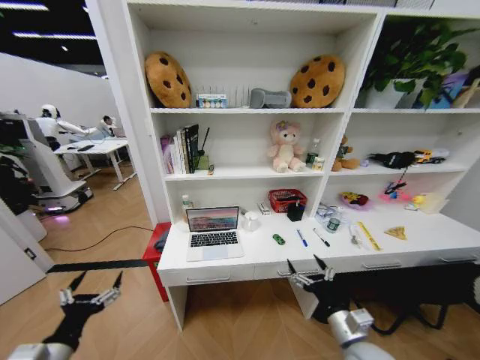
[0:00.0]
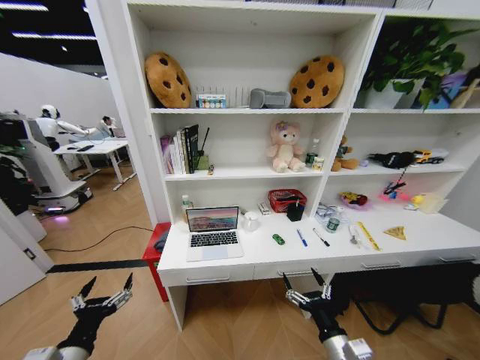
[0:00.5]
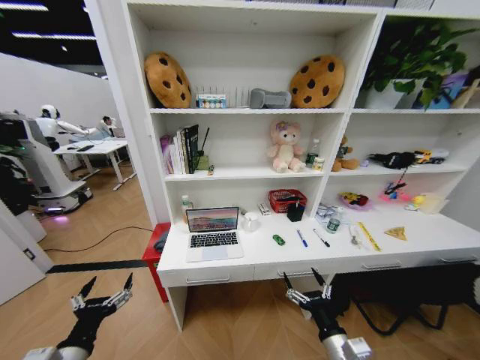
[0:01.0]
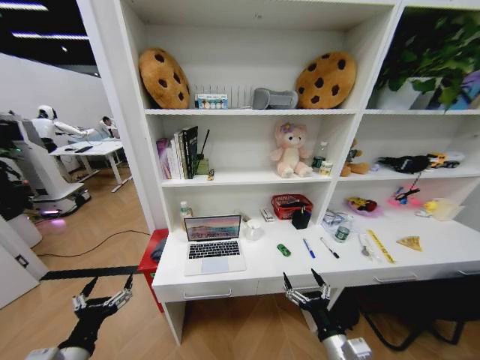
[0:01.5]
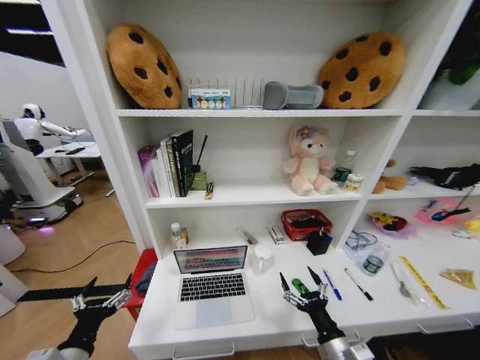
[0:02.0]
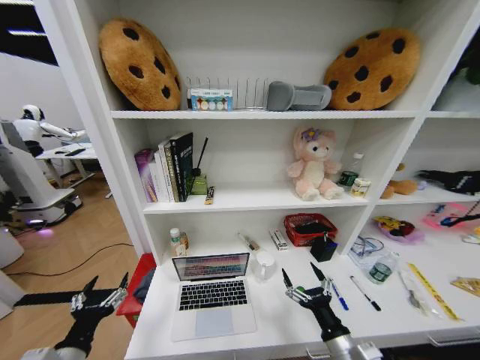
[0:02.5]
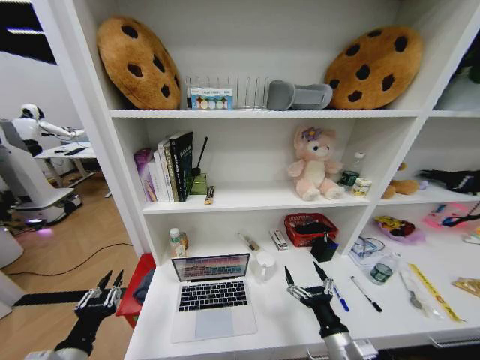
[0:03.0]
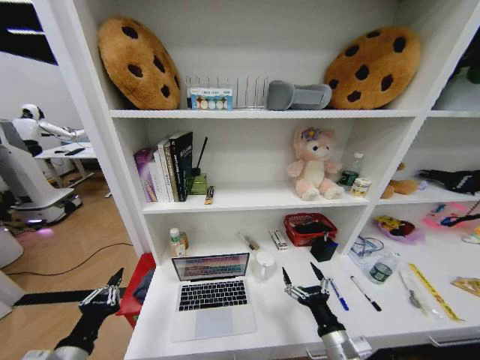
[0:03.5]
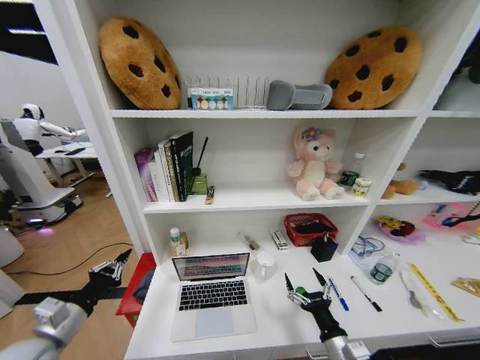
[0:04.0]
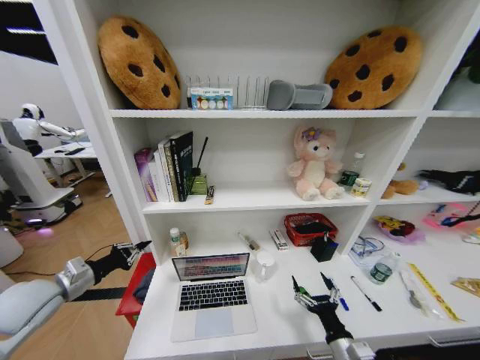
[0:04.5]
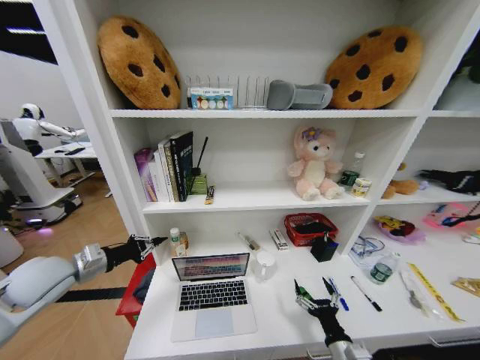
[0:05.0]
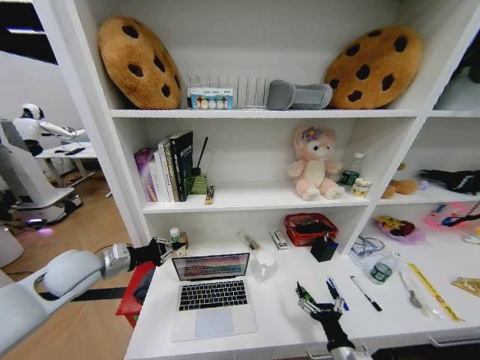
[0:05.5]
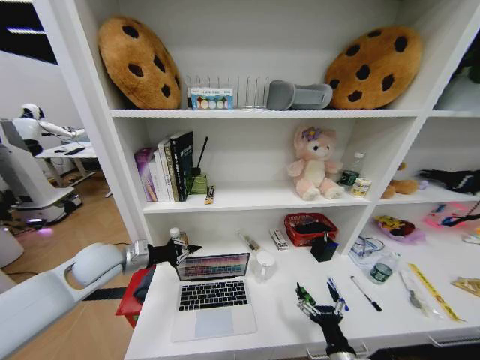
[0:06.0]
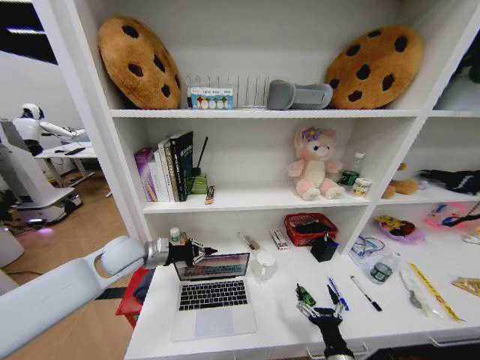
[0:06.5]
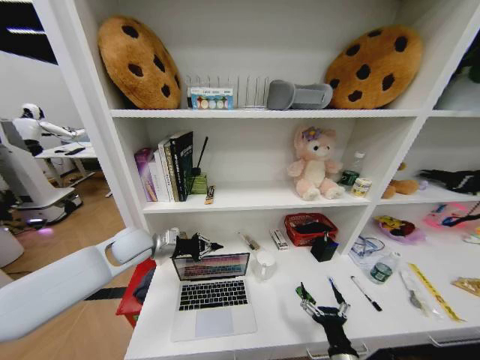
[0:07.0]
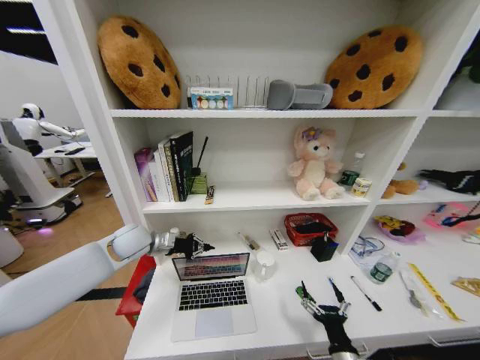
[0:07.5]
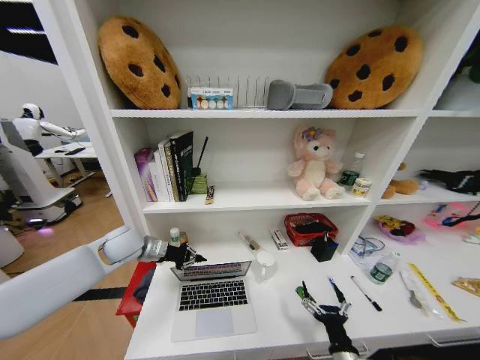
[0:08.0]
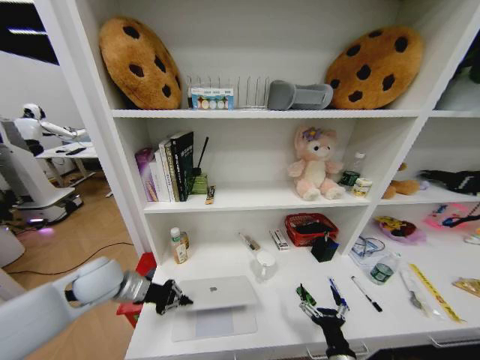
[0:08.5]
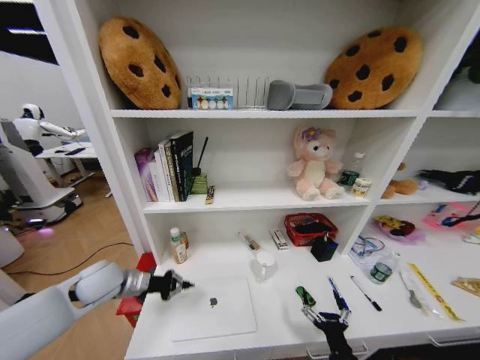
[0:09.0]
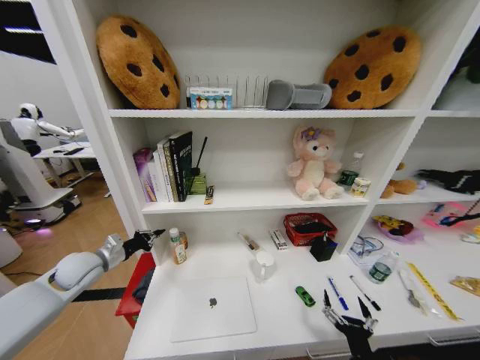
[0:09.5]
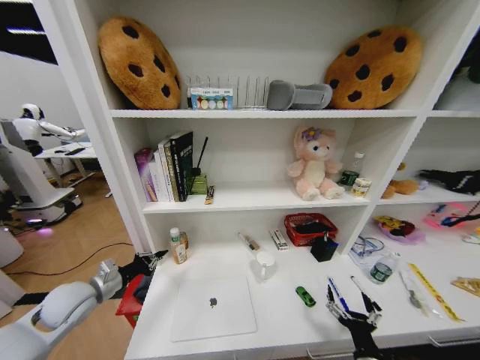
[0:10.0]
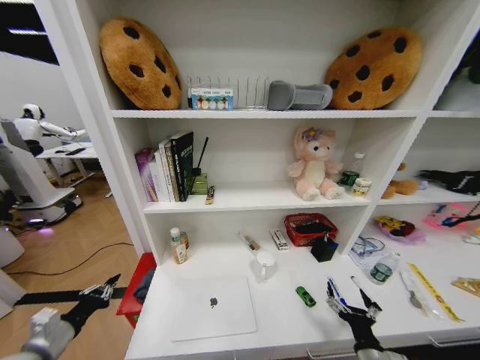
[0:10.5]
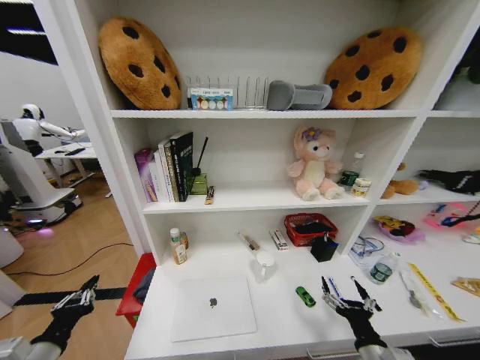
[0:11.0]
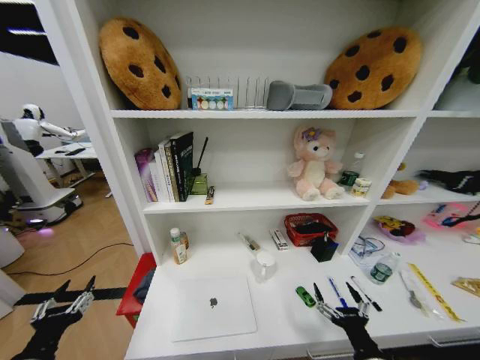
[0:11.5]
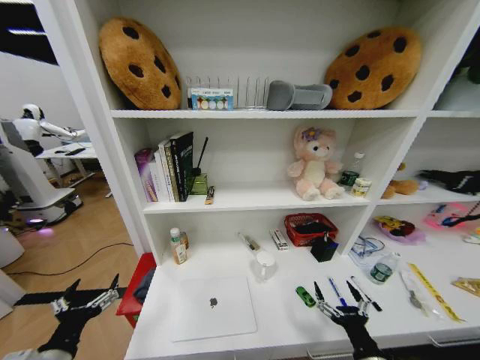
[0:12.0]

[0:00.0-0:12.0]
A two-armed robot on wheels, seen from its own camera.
Task of the whole recording: Organize the objects on the table.
0:02.0 to 0:04.0: The left gripper moves forward and to the left, roughly 10 cm, and closes its fingers.
0:04.0 to 0:06.0: The left gripper is displaced forward and to the right by roughly 20 cm.
0:06.0 to 0:08.0: The left gripper is displaced forward by some 5 cm.
0:08.0 to 0:10.0: The left gripper swings forward and backward, some 10 cm each way, with 2 reversals.
0:10.0 to 0:12.0: The left gripper goes some 20 cm backward, and opens up.

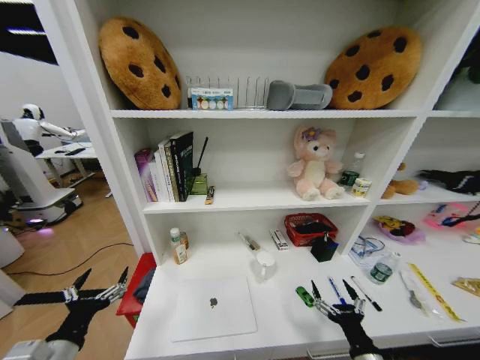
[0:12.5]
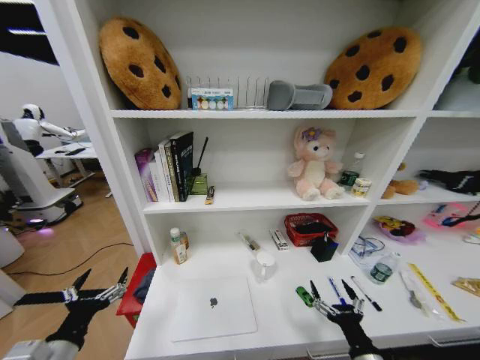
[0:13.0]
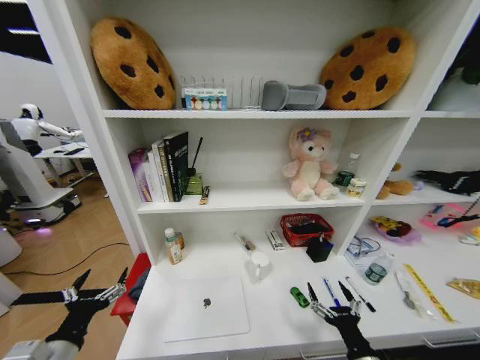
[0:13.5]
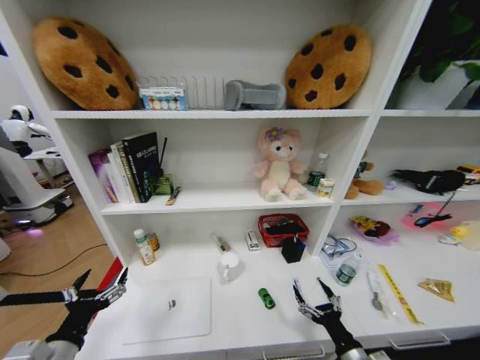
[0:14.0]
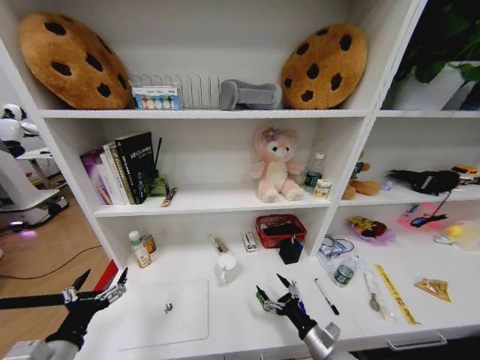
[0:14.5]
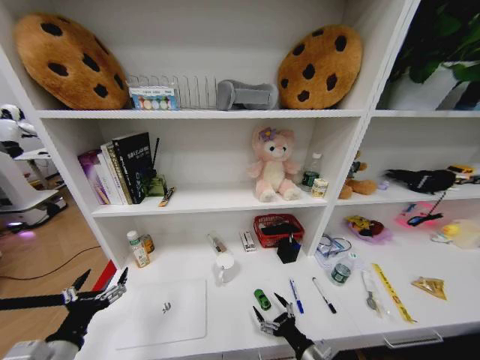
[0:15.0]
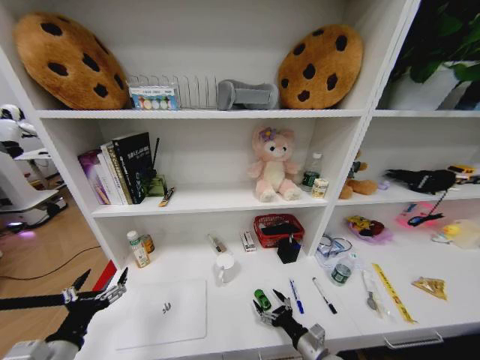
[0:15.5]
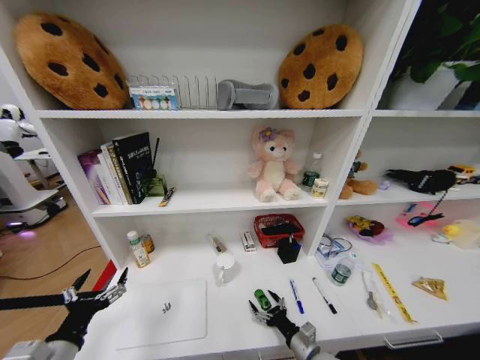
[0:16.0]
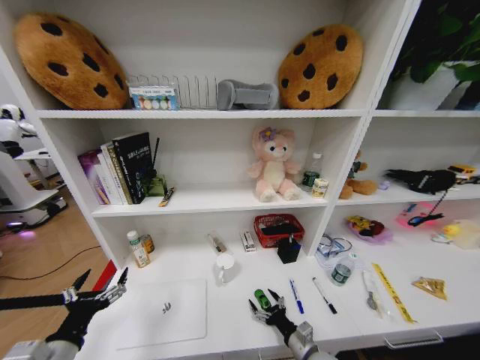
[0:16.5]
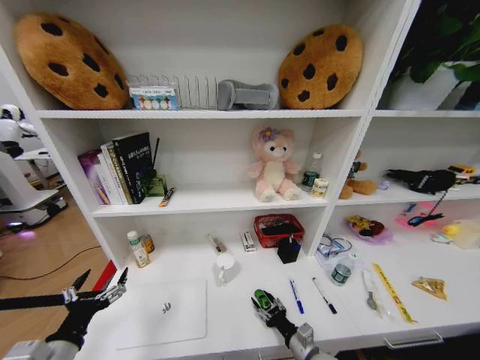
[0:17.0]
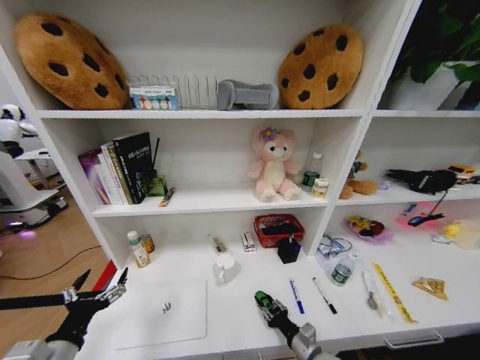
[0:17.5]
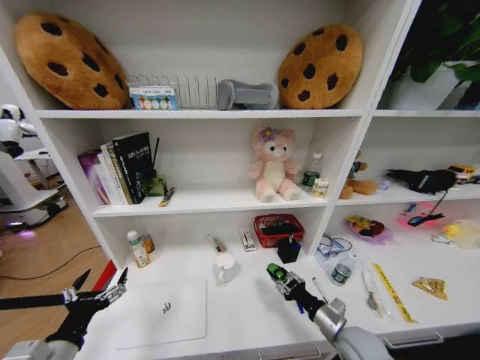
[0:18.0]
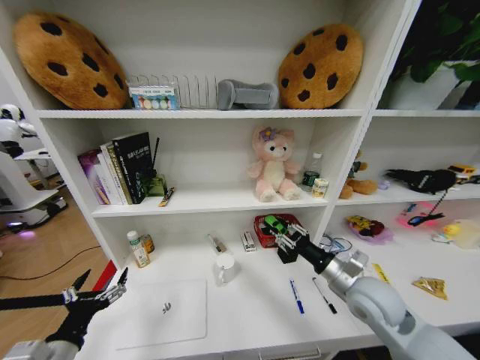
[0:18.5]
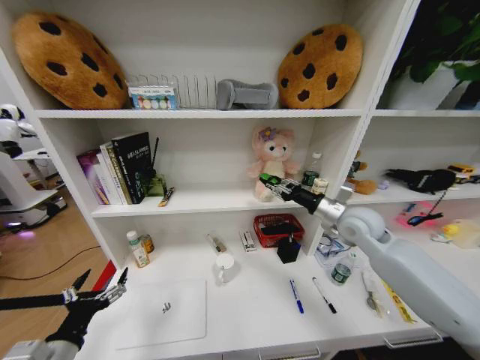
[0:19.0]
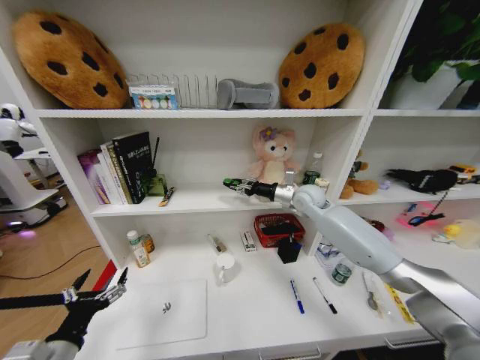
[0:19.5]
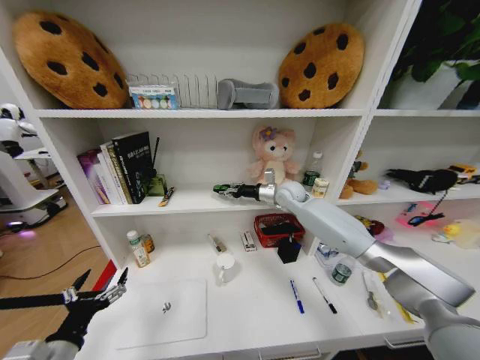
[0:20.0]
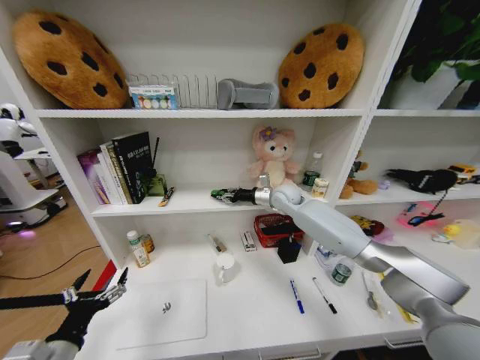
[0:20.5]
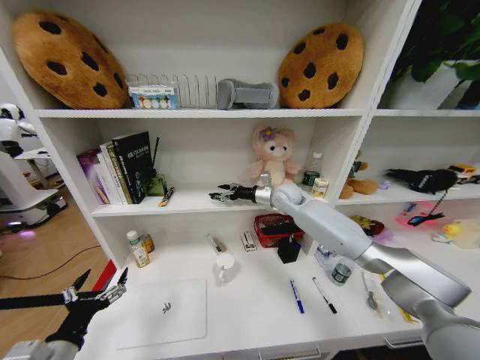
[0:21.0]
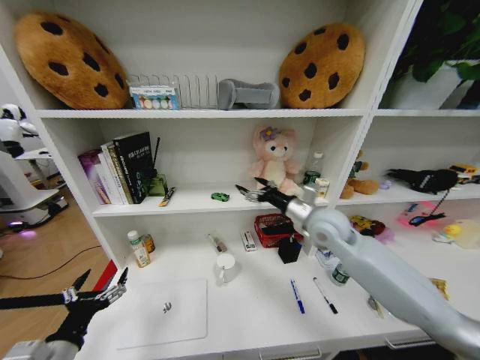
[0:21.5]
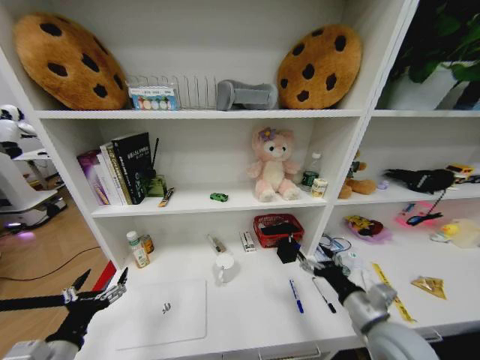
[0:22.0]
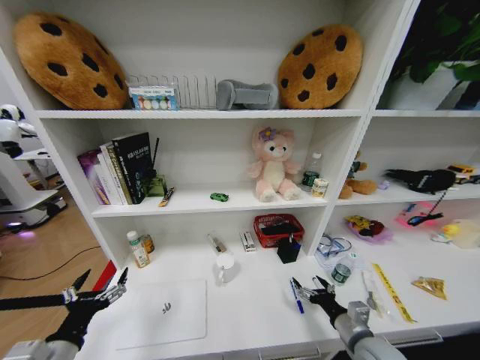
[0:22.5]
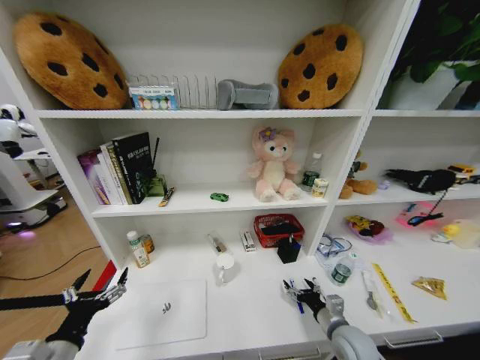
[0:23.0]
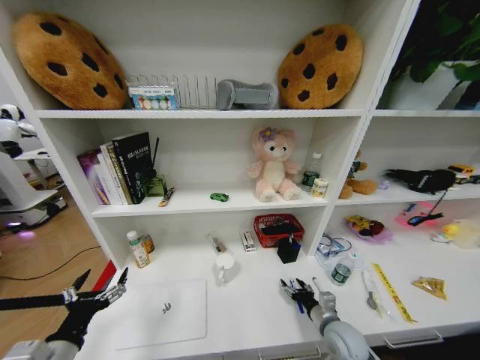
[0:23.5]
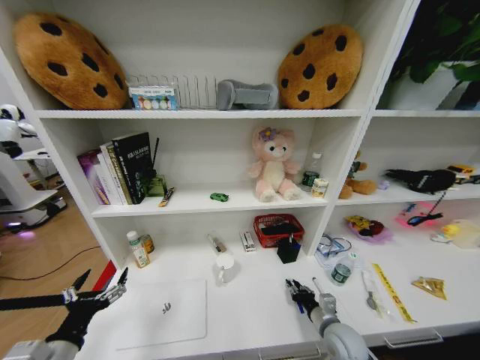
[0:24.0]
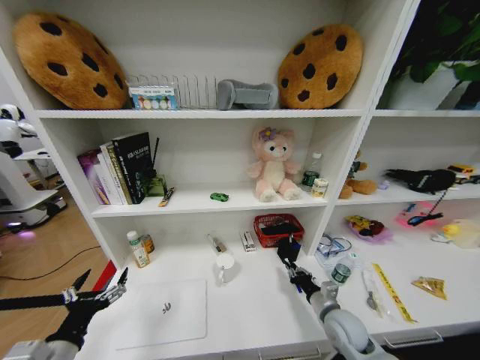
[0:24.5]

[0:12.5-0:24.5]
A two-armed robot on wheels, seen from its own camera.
Task of the whole recording: Organize the objects on the table.
0:12.5 to 0:14.5: The right gripper travels forward and downward by approximately 10 cm.
0:14.5 to 0:16.5: The right gripper moves approximately 5 cm.
0:16.5 to 0:18.5: The right gripper moves upward, roughly 25 cm, and closes.
0:18.5 to 0:20.5: The right gripper moves forward, approximately 30 cm.
0:20.5 to 0:22.5: The right gripper shifts about 40 cm backward and downward, and opens its fingers.
0:22.5 to 0:24.5: The right gripper moves forward, some 5 cm, and closes.

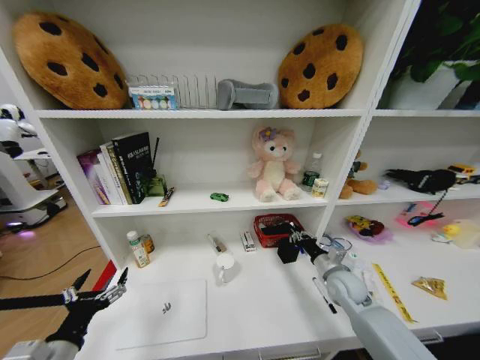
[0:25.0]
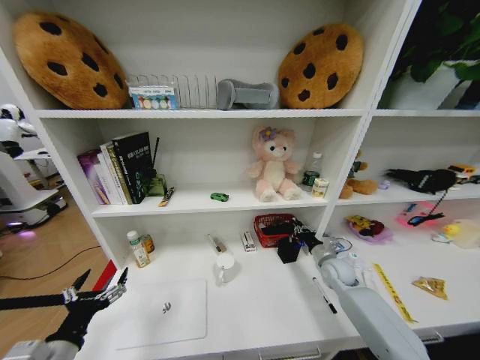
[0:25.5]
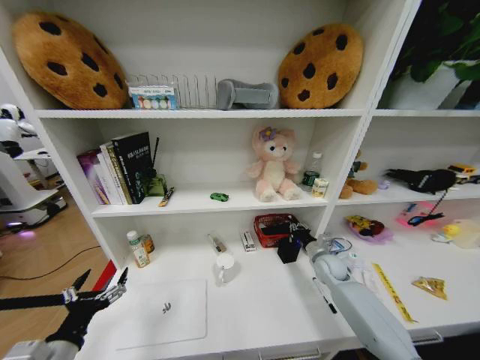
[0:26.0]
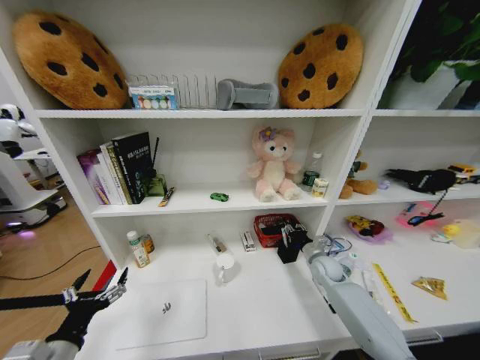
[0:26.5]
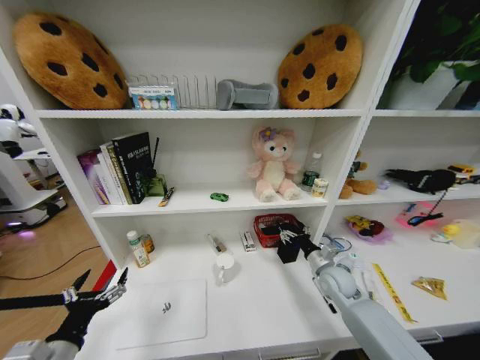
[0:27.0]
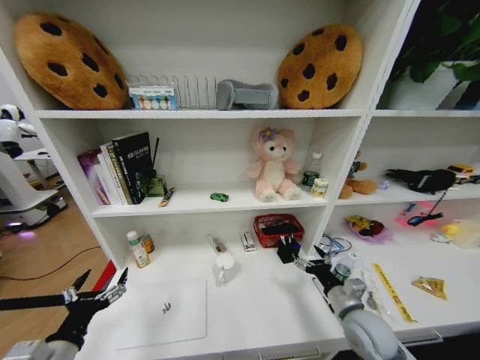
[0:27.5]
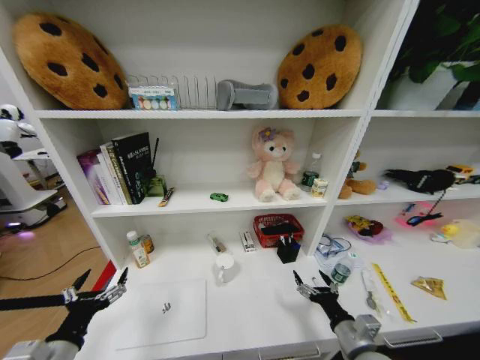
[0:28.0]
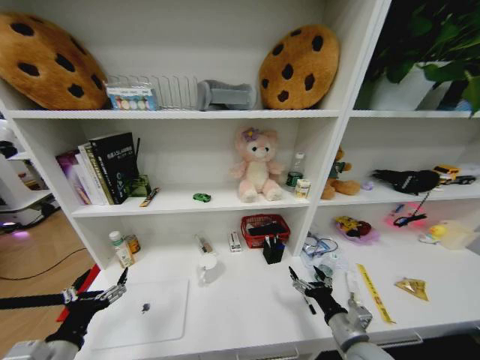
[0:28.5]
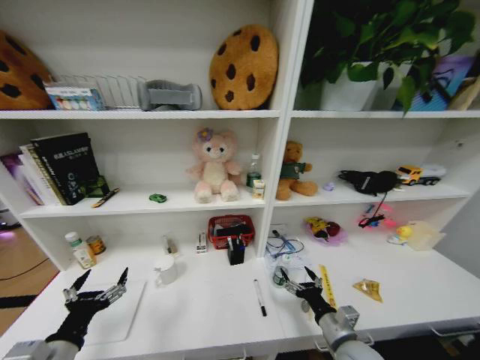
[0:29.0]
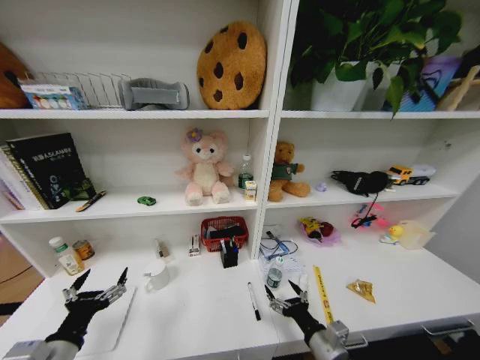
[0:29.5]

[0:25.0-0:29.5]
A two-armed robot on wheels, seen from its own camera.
Task of the whole recording: Organize the objects on the table.
0:25.0 to 0:27.0: The right gripper opens.
0:27.0 to 0:29.5: The right gripper heads backward, covering some 25 cm.
